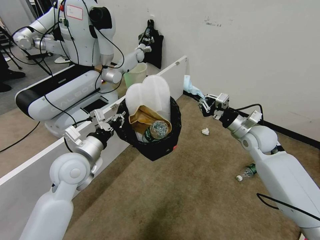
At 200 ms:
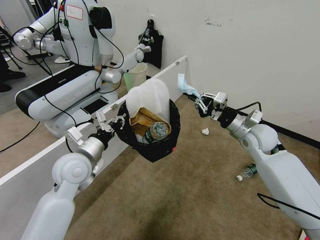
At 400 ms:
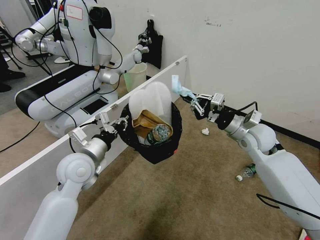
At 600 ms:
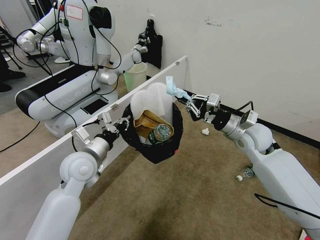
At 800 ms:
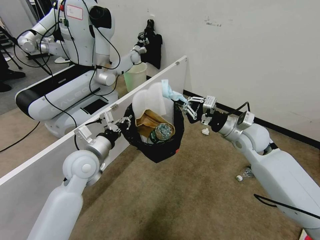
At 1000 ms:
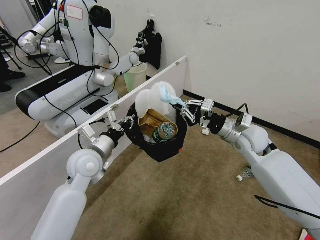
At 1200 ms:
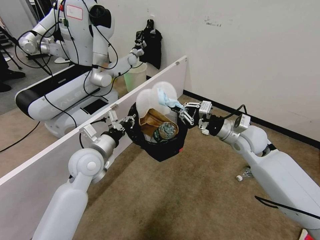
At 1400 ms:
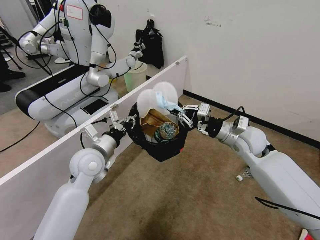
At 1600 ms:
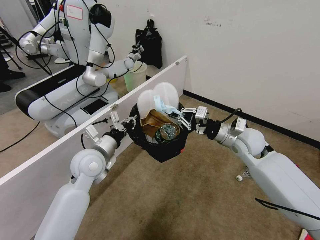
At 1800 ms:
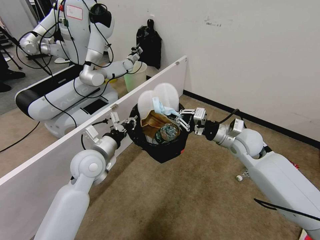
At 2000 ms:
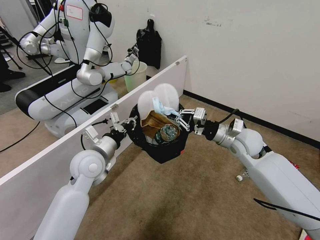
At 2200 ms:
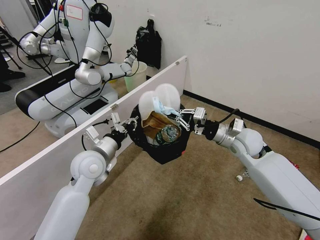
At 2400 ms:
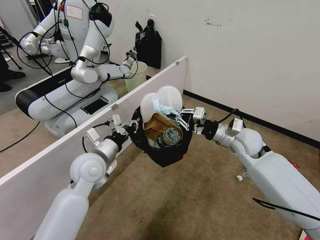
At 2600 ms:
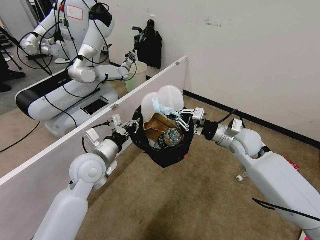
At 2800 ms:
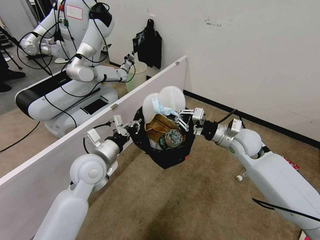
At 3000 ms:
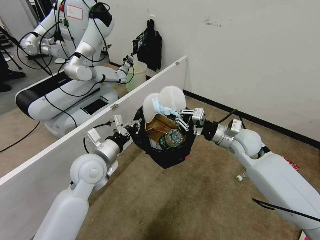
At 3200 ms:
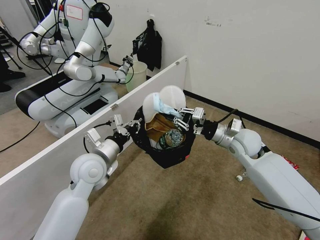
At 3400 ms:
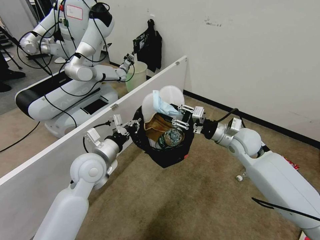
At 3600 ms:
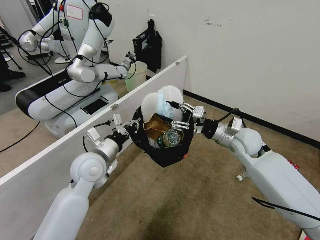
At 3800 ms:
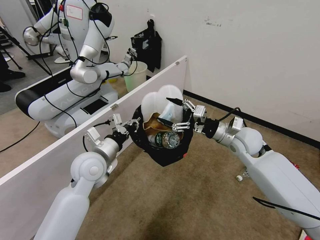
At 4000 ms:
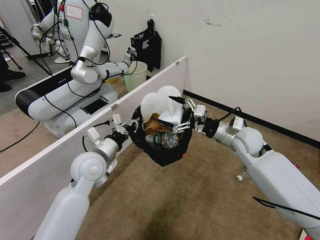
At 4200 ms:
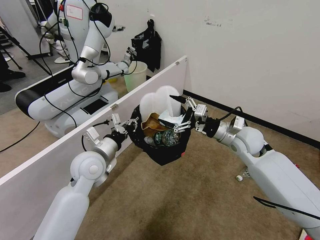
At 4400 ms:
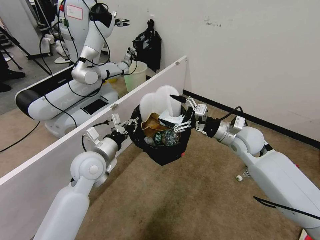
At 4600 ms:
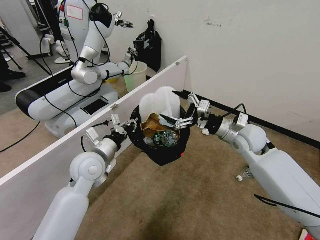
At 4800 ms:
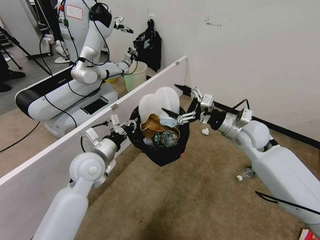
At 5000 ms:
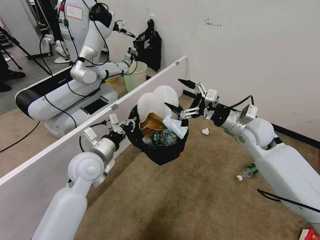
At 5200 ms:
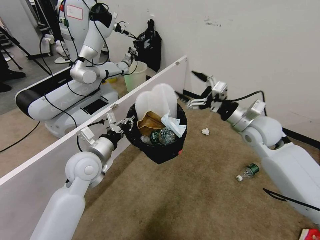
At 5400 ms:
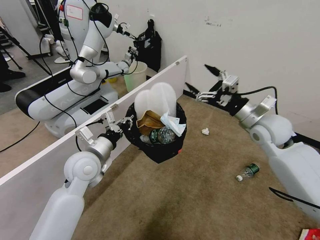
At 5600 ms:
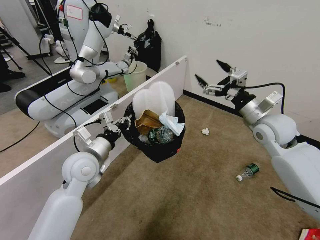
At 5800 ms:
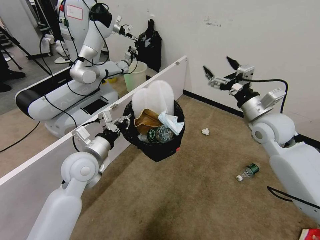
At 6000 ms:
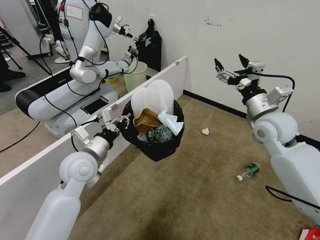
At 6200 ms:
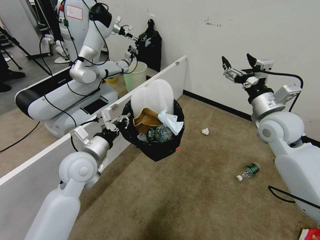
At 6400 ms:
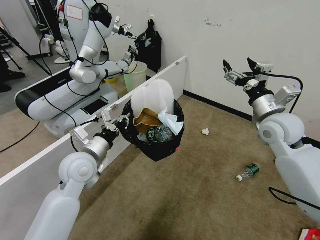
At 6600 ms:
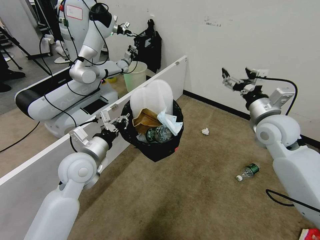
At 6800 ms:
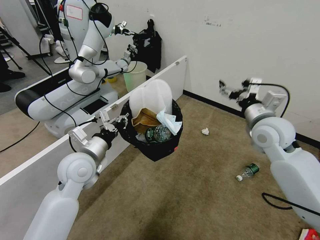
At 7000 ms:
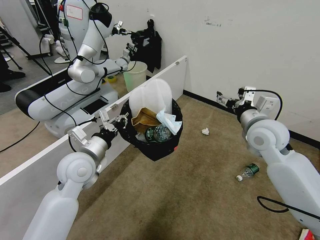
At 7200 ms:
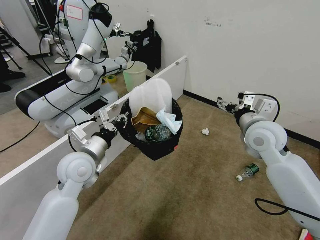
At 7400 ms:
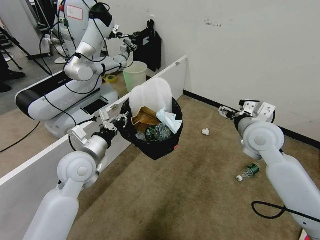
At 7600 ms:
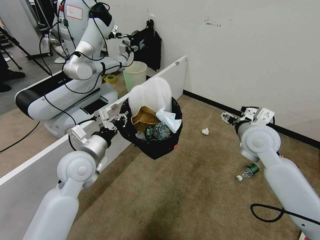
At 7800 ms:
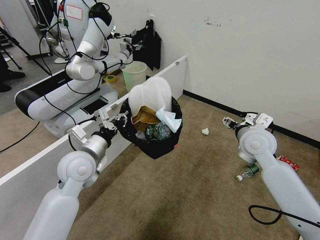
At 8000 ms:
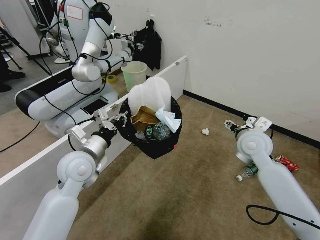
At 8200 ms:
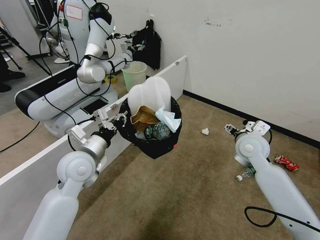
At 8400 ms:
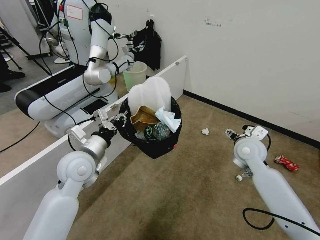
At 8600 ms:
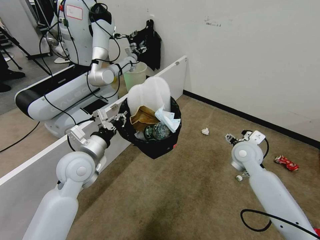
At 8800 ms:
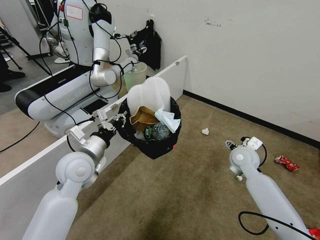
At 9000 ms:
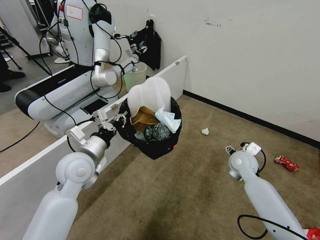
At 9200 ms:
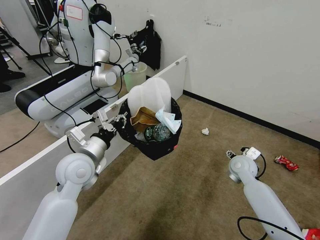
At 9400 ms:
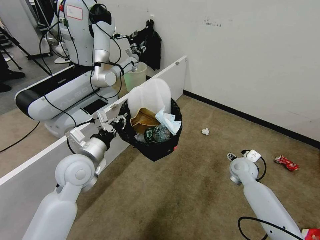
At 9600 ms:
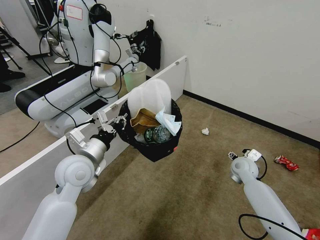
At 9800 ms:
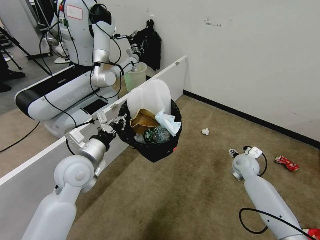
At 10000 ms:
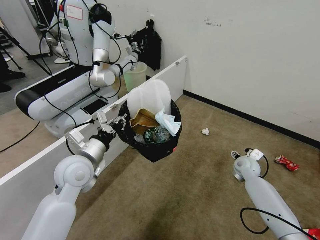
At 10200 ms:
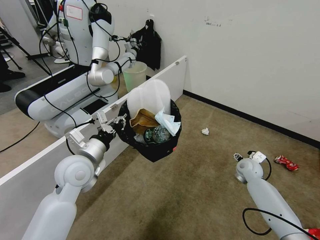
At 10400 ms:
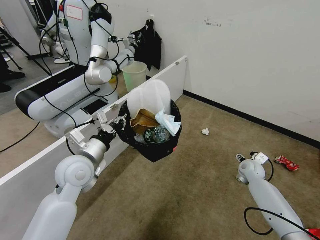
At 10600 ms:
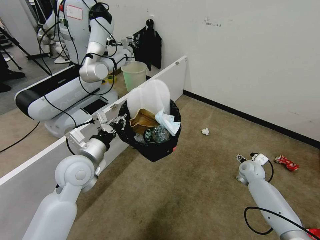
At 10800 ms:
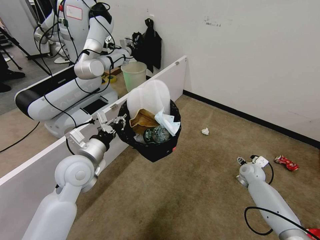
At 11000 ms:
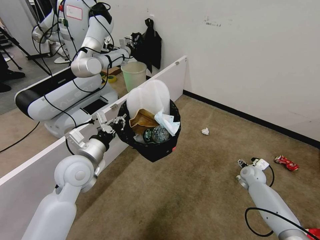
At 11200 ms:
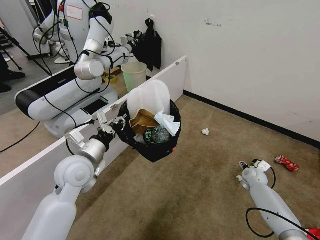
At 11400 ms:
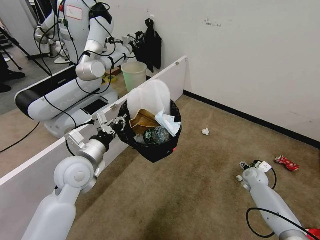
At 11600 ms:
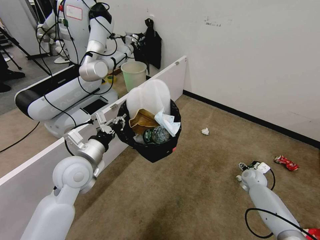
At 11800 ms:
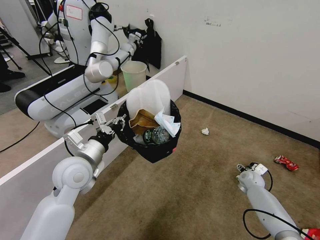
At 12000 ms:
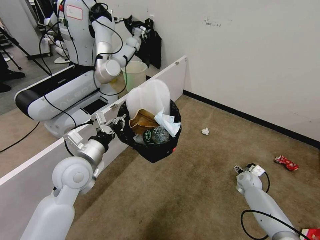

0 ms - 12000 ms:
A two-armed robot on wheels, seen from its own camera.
Task of the whole recording: Pick up the trash bin, then pick up the garbage from the floor and place it into the trash bin.
0 ms - 1600 ms: The left gripper shifts by roughly 5 cm, while the right gripper is displaced to the left by roughly 5 cm.
1600 ms - 3000 ms: The grippers make only small movements.
3000 ms - 4400 ms: The right gripper opens its fingers.
4400 ms - 6000 ms: The right gripper shifts approximately 5 cm upward.
6000 ms - 7600 ms: The right gripper changes place by approximately 5 cm.
7600 ms - 9000 ms: The right gripper heads downward, covering some 15 cm.
9000 ms - 10400 ms: The right gripper shifts approximately 15 cm downward and to the right.
10400 ms - 12000 ms: The right gripper moves downward, some 10 cm.

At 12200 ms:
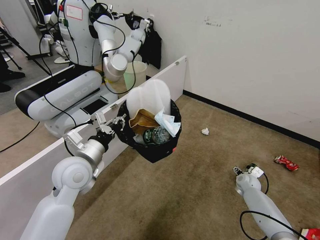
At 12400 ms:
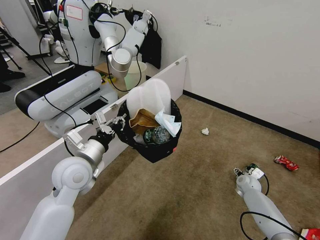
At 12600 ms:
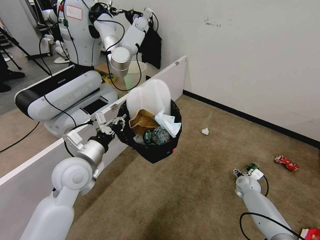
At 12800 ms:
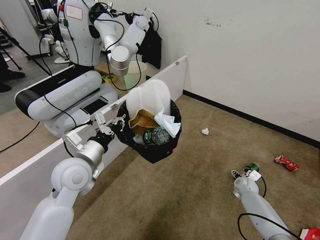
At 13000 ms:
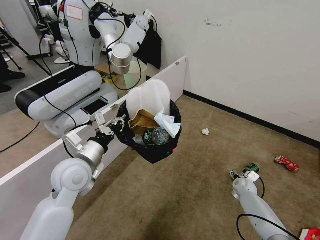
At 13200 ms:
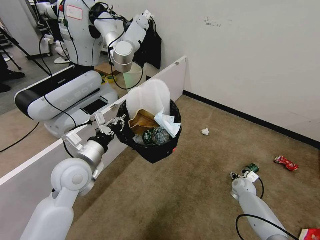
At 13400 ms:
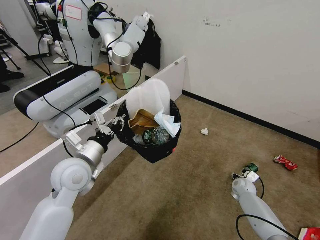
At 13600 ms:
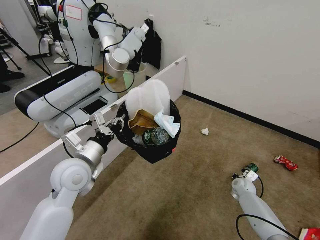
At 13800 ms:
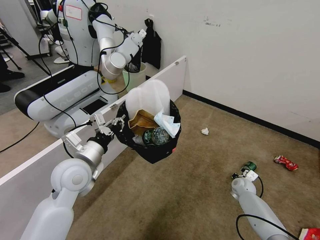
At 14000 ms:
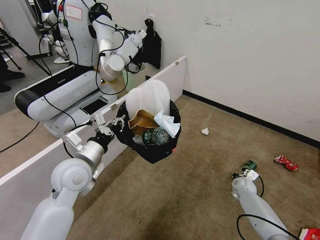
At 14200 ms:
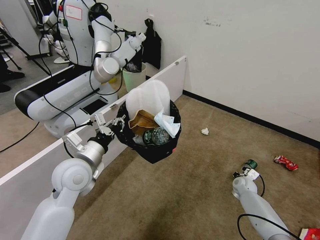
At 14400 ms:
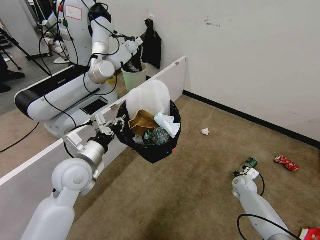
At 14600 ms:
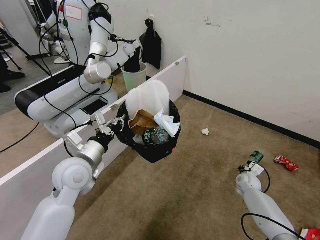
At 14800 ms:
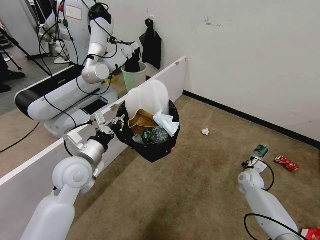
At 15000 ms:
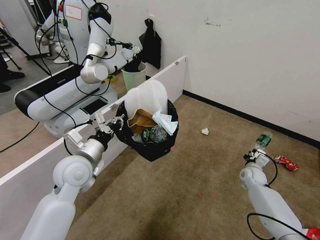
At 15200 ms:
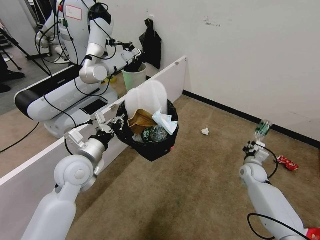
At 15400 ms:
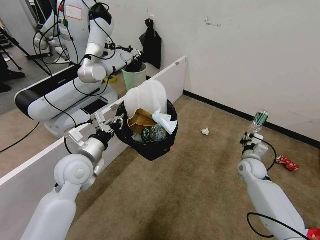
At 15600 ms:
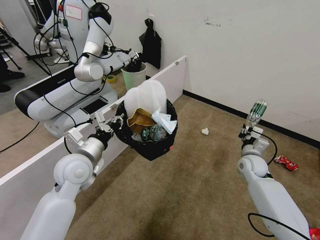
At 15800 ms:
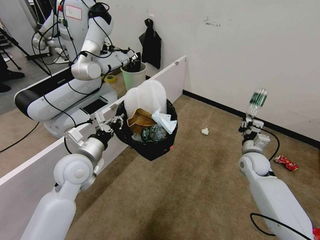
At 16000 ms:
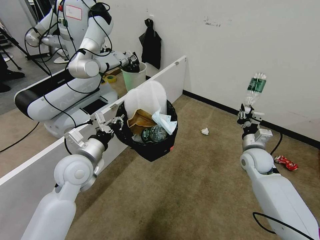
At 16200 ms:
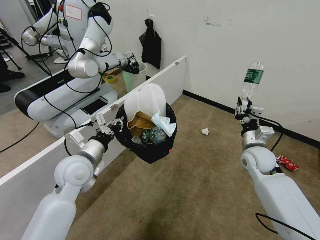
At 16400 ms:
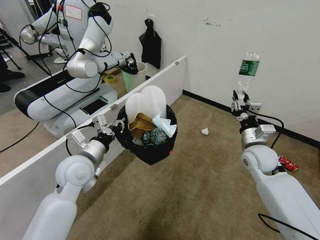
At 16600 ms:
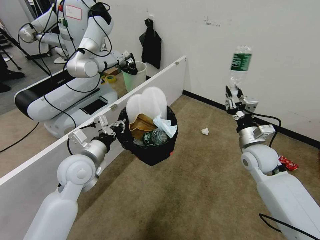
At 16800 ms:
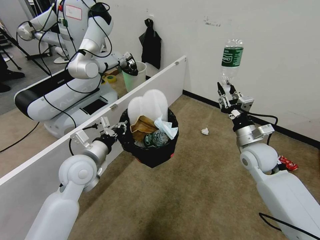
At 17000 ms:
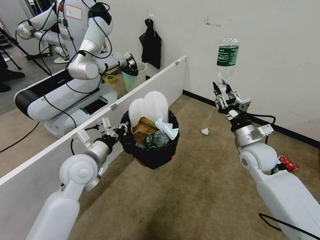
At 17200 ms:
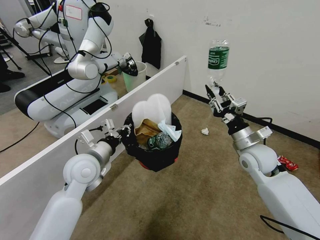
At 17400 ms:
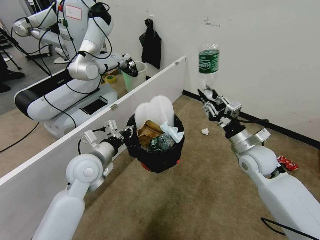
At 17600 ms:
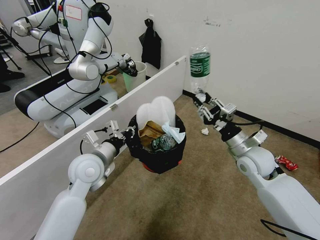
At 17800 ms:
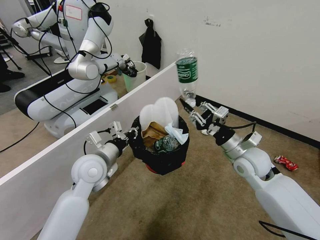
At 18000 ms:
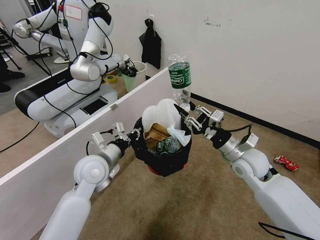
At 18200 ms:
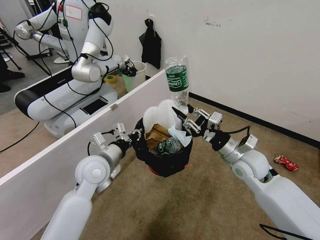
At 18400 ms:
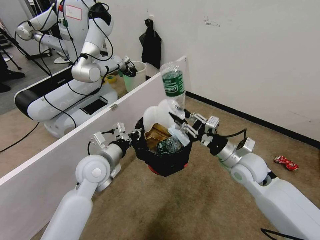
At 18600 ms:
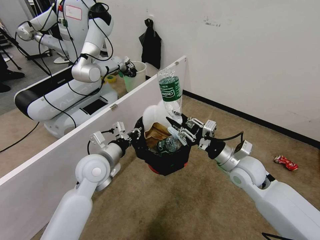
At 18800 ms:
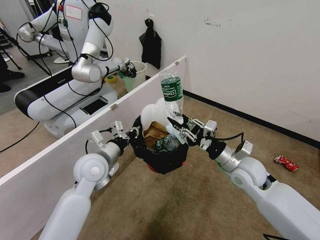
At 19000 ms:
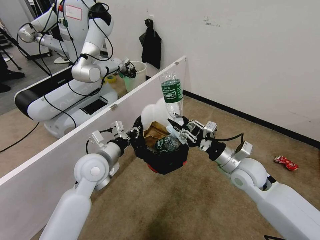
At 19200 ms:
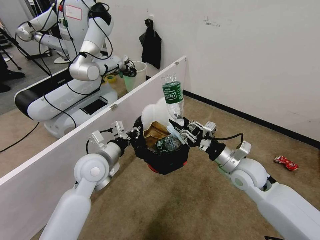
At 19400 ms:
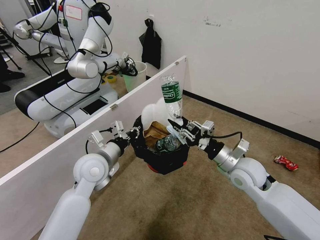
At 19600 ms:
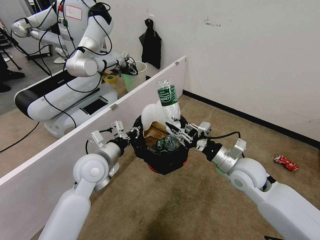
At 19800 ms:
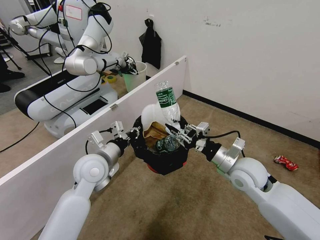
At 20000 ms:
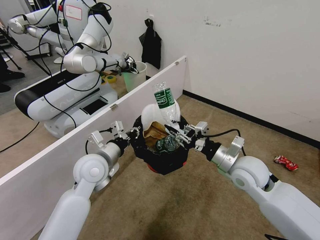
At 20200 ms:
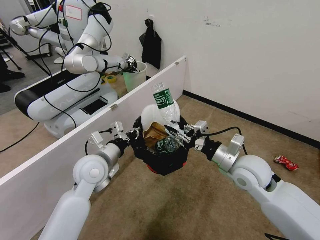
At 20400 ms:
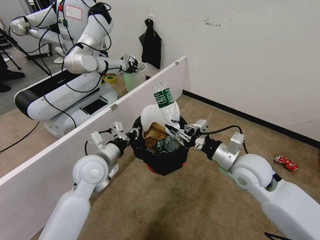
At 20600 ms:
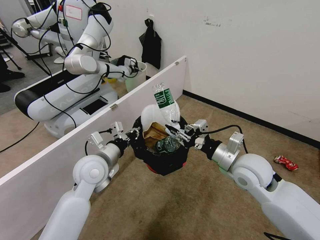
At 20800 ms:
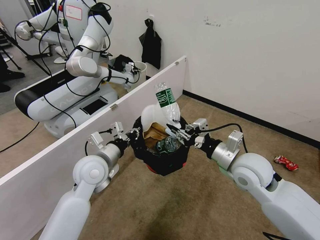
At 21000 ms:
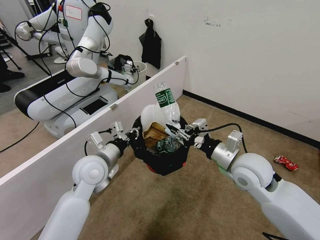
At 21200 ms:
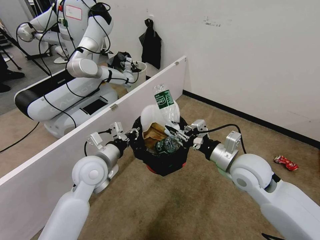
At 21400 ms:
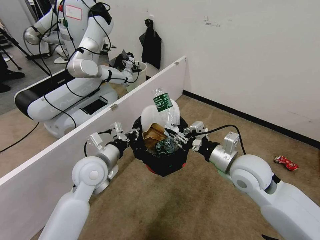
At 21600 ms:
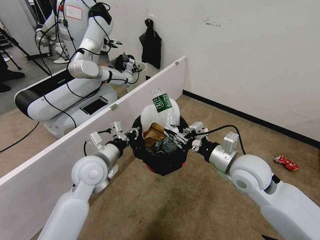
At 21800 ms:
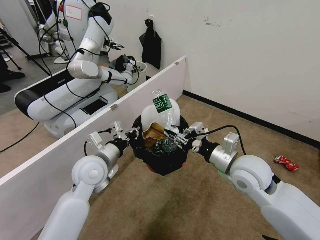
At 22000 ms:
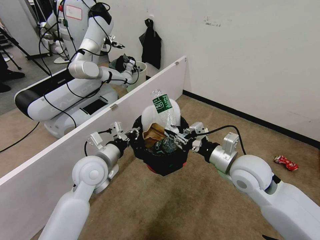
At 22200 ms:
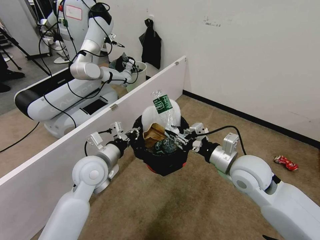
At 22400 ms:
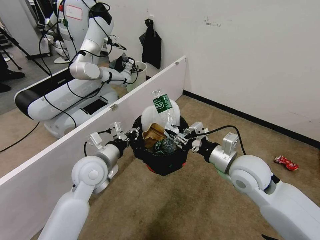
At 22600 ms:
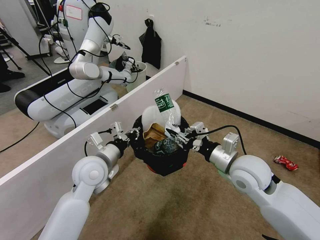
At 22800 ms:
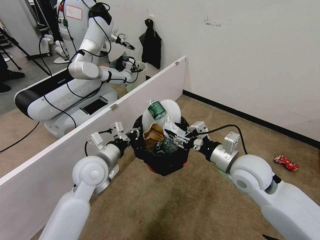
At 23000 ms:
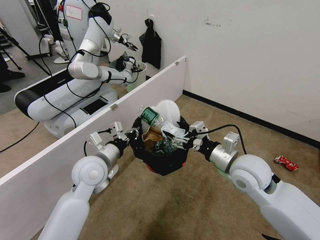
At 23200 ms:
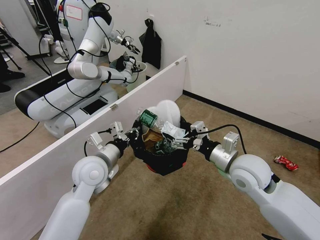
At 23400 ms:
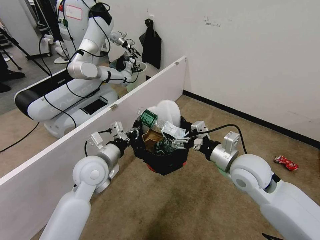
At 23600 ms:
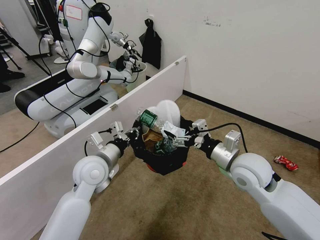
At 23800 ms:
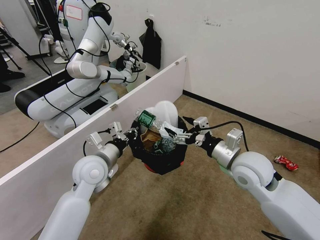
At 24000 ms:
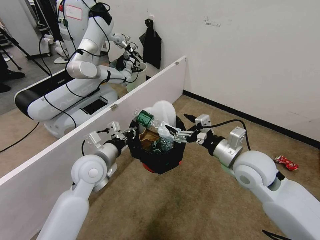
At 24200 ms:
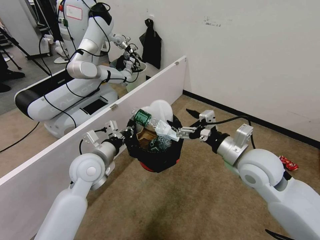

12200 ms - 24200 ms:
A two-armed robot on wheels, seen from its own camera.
Task of the whole recording: Pick up the trash bin, then pick up the garbage from the floor and place it into the trash bin.
12200 ms - 13800 ms: The right gripper closes.
13800 ms - 15200 ms: The right gripper goes roughly 10 cm upward.
15200 ms - 16600 ms: The right gripper goes some 20 cm upward and to the left.
16600 ms - 18200 ms: The right gripper moves some 5 cm.
18200 ms - 19800 ms: The grippers move only a little.
19800 ms - 21200 ms: The grippers move only a little.
21200 ms - 22600 ms: Neither gripper changes place.
22600 ms - 24200 ms: The right gripper opens.
